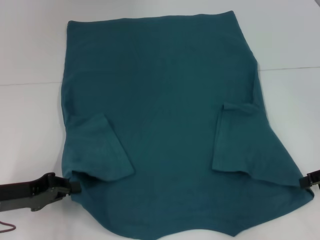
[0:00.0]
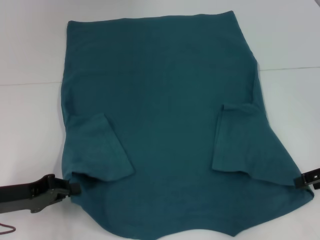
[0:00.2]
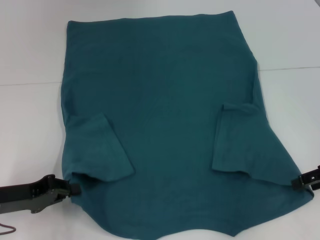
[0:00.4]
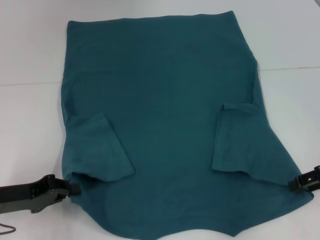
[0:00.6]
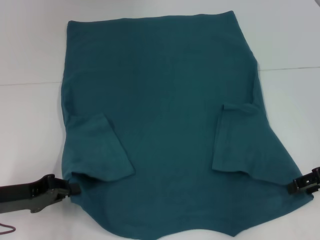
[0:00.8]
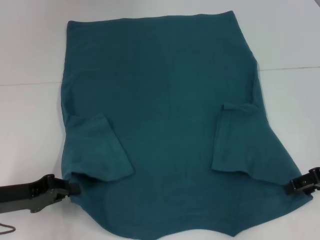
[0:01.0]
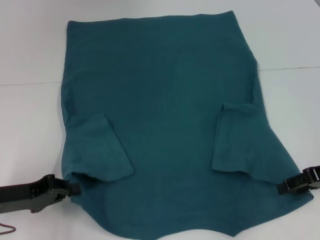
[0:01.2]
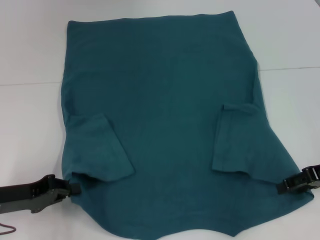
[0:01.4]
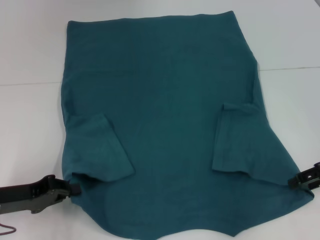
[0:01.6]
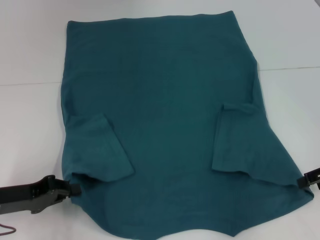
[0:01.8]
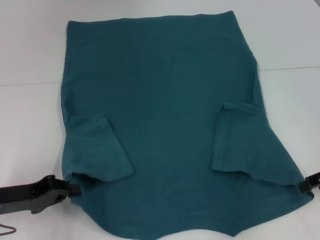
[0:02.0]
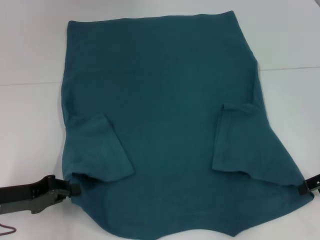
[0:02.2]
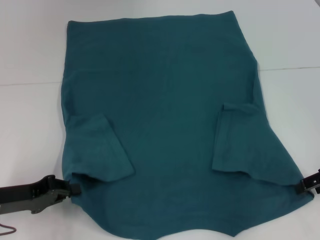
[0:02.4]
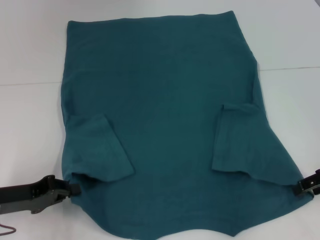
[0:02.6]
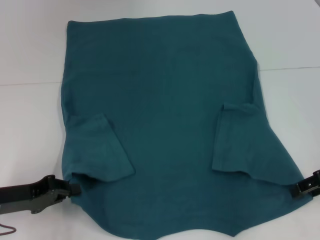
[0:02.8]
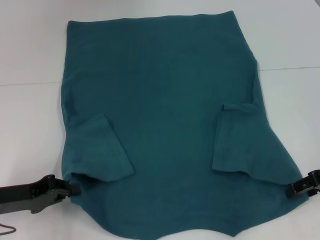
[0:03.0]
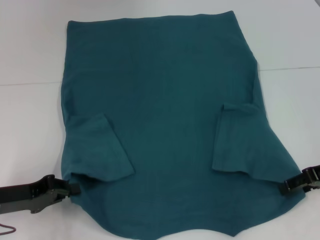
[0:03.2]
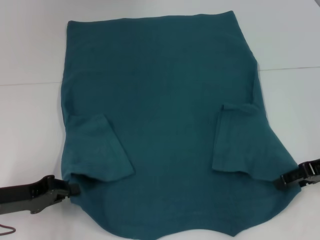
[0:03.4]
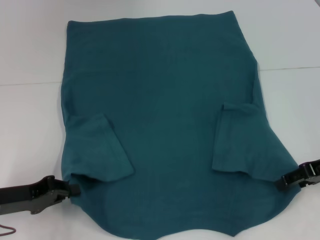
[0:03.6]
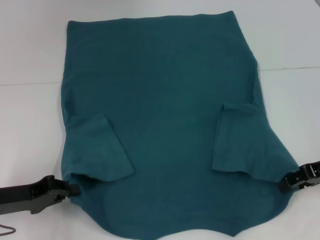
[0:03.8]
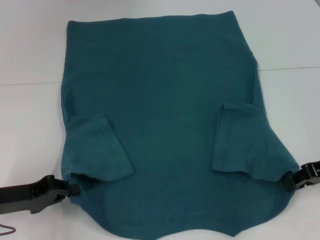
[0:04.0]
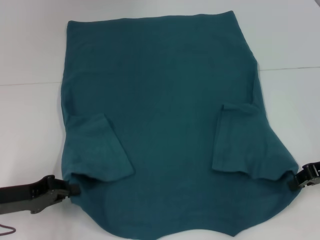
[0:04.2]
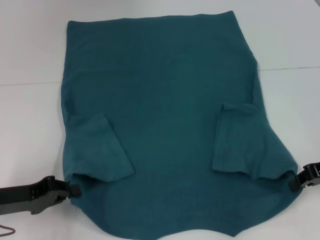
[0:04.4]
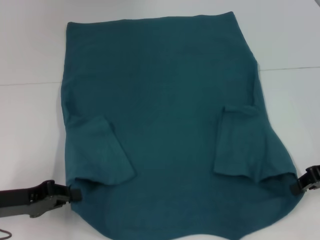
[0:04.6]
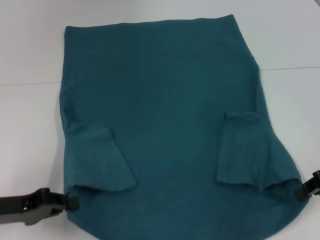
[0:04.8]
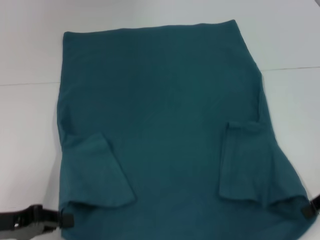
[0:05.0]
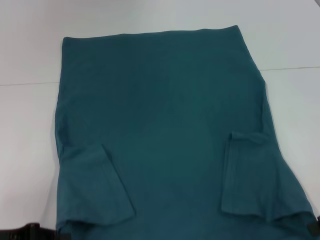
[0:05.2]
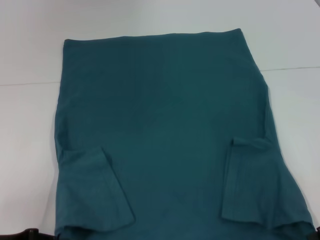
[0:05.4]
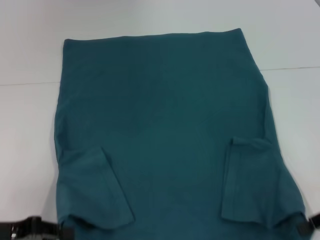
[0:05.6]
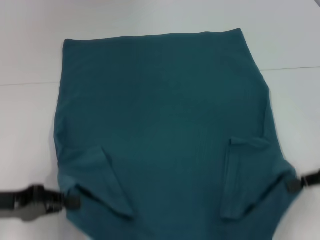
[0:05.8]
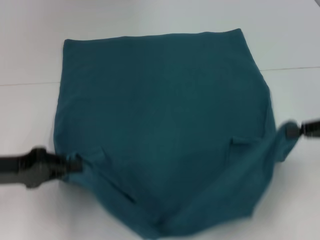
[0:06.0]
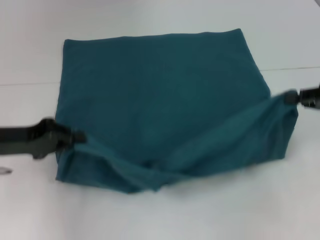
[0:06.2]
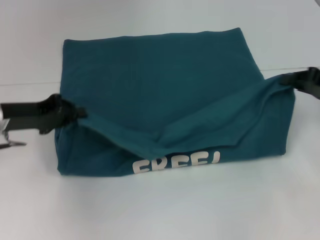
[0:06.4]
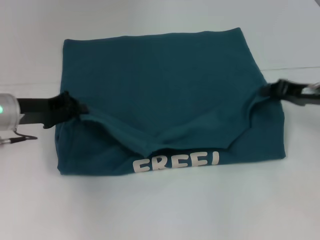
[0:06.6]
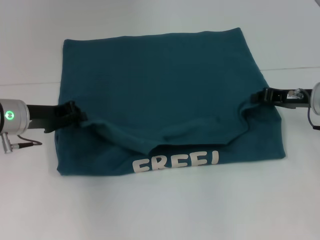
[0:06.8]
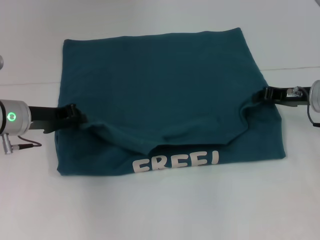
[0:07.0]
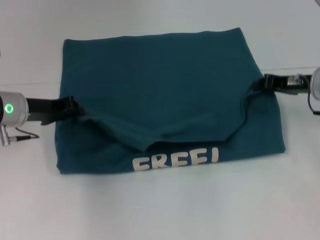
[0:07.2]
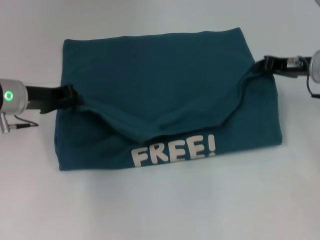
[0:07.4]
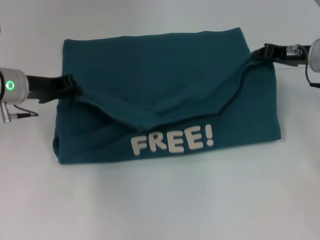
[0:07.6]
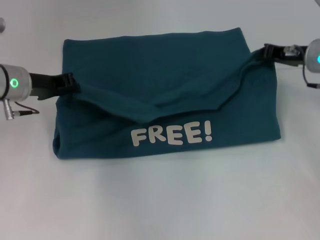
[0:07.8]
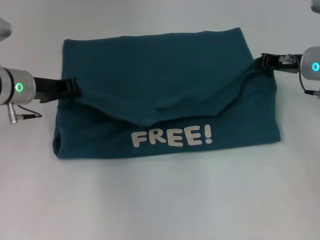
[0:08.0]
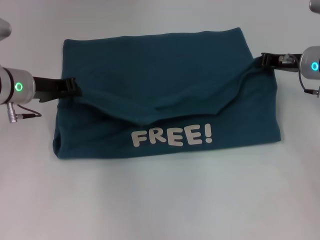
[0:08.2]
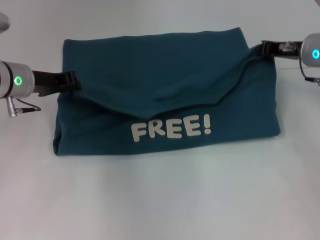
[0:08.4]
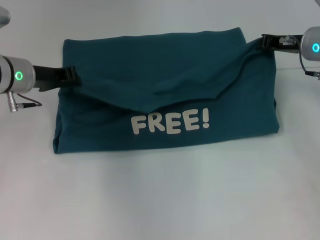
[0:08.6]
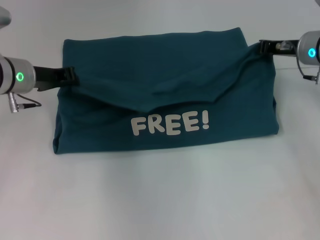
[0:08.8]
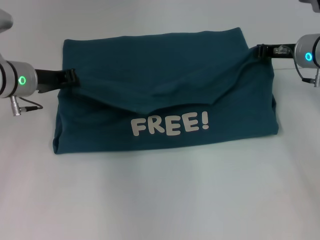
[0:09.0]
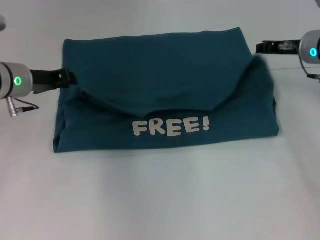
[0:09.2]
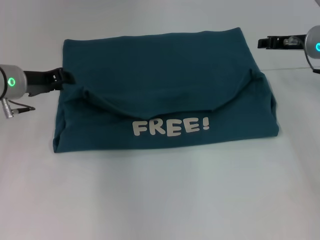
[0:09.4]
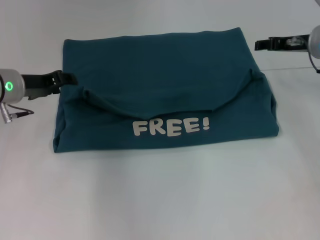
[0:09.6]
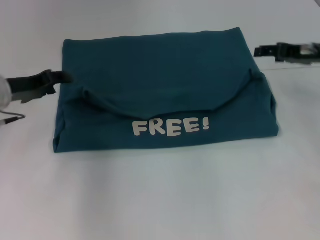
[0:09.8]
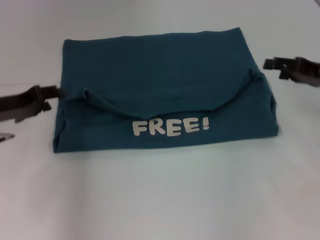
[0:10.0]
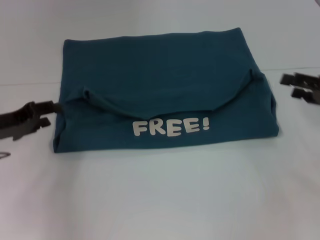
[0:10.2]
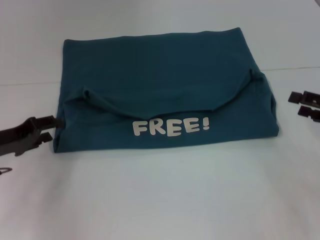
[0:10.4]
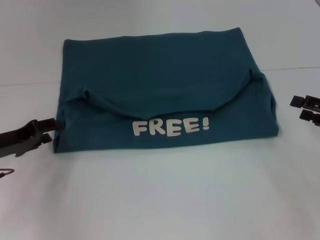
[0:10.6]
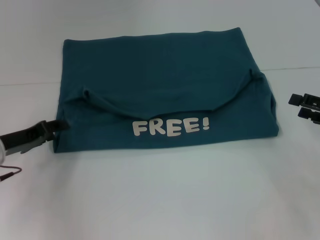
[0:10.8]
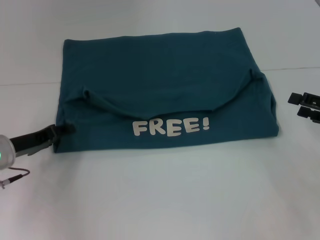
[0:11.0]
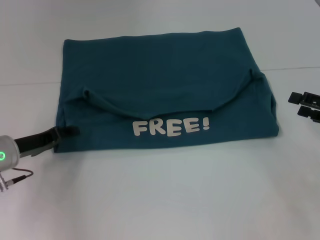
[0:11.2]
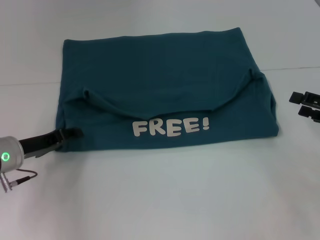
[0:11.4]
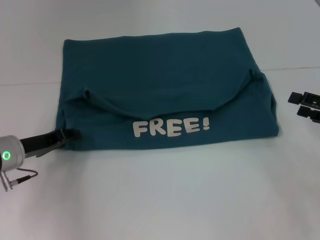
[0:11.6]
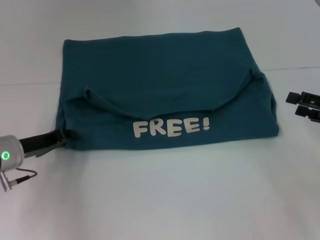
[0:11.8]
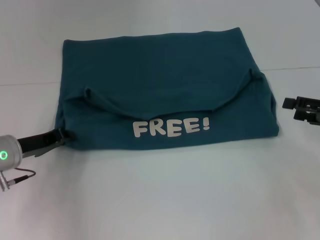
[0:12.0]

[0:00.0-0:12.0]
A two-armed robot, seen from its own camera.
Step, 0.0 to 4.8 s: Grab the bottom right corner with your right hand.
Step, 5.0 to 10.0 s: Fold the clothes to the left.
Step, 5.0 to 10.0 s: Fold the clothes to the right.
0.0 to 1.6 s: There are only small adjustments of the grippers.
3.0 to 4.4 s: The right gripper closes its fingers.
4.4 to 6.0 s: The right gripper changes place by some 5 cm. The left gripper moves upward, approximately 5 cm.
6.0 to 7.6 s: The left gripper travels forward and to the right by roughly 15 cm. Meanwhile the right gripper shifts approximately 15 cm forward and to the left.
7.6 to 9.0 s: The grippers move only a little.
9.0 to 10.4 s: The right gripper shifts roughly 20 cm backward and to the right, and opens. The left gripper moves backward, to the left and downward, some 15 cm, and opens up.
10.4 to 12.0 s: The left gripper closes.

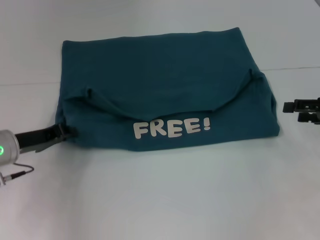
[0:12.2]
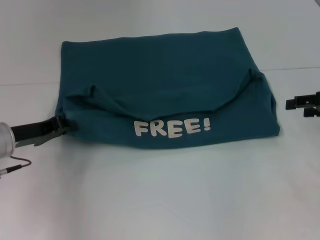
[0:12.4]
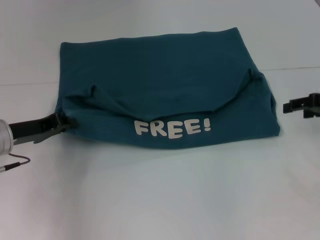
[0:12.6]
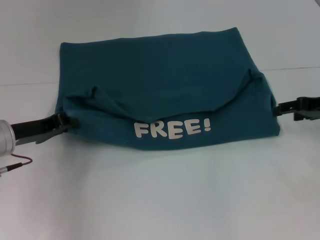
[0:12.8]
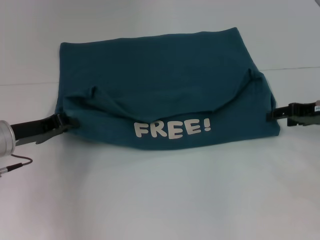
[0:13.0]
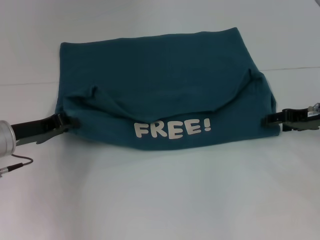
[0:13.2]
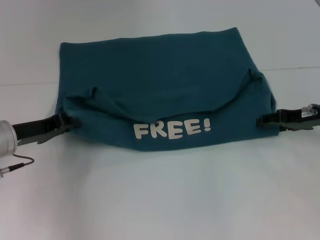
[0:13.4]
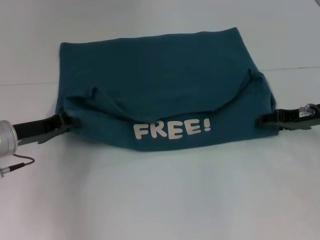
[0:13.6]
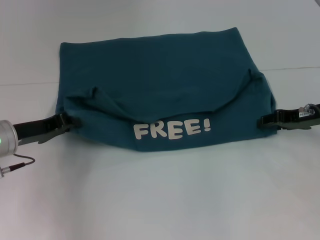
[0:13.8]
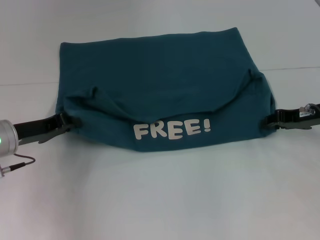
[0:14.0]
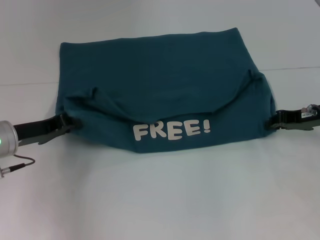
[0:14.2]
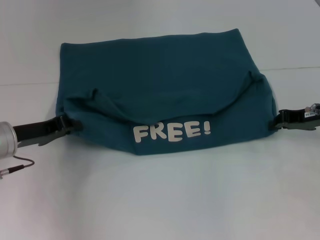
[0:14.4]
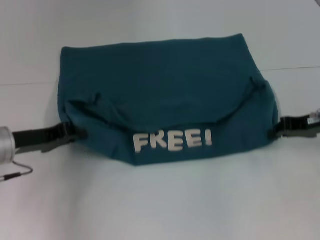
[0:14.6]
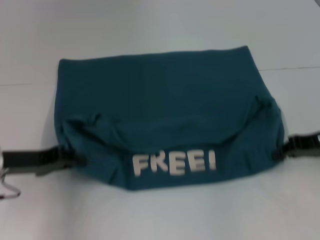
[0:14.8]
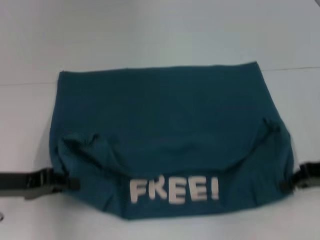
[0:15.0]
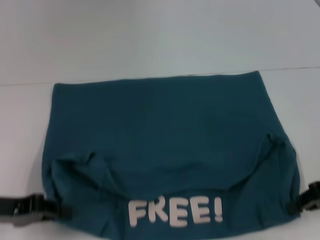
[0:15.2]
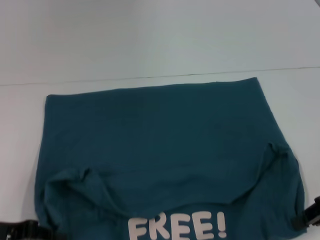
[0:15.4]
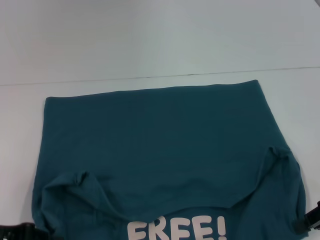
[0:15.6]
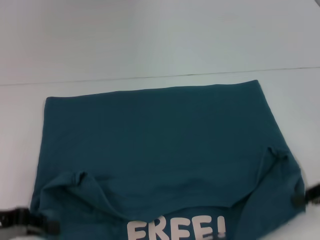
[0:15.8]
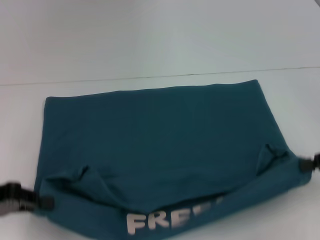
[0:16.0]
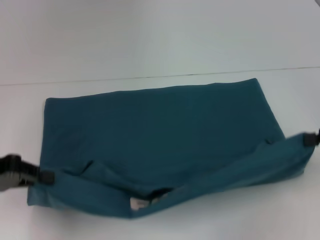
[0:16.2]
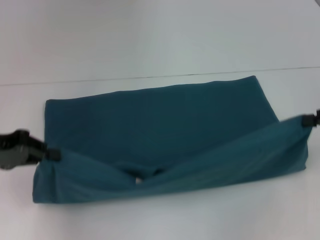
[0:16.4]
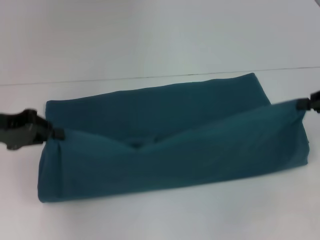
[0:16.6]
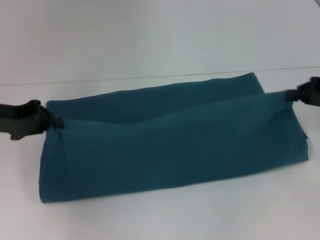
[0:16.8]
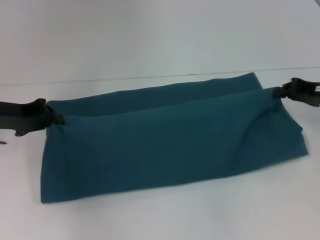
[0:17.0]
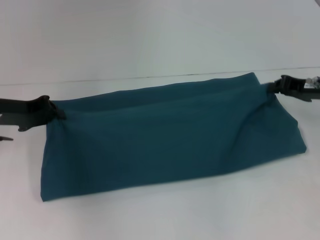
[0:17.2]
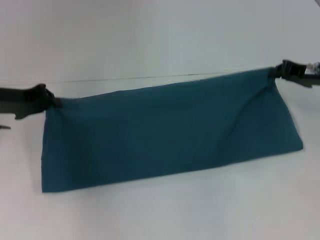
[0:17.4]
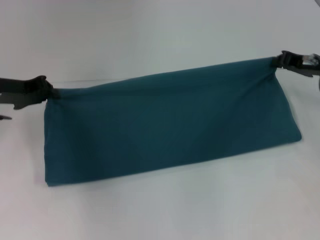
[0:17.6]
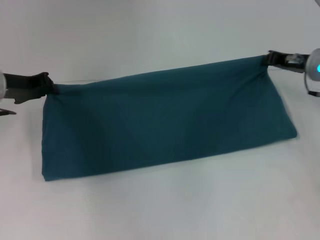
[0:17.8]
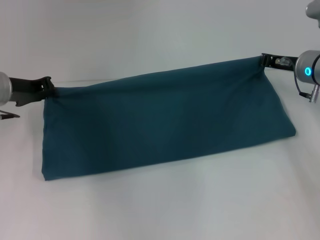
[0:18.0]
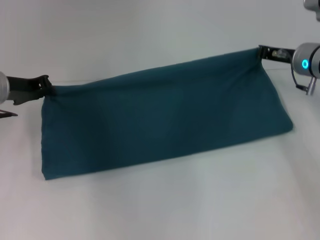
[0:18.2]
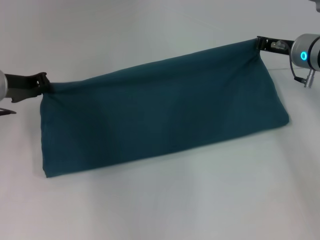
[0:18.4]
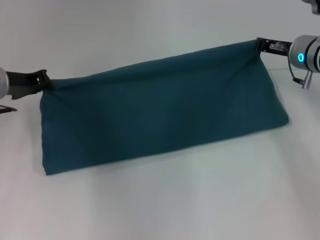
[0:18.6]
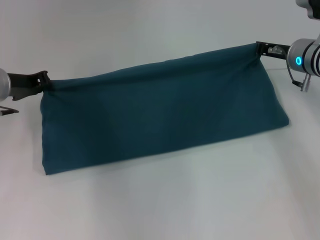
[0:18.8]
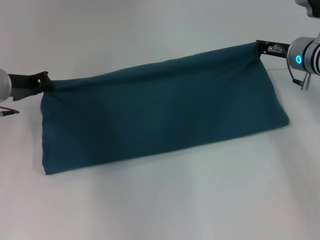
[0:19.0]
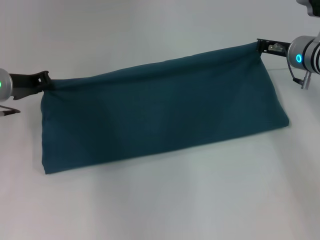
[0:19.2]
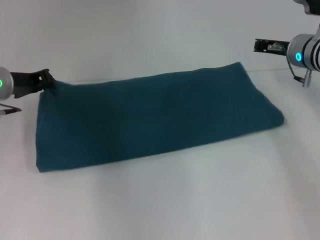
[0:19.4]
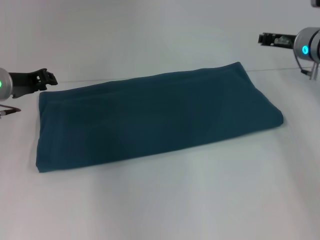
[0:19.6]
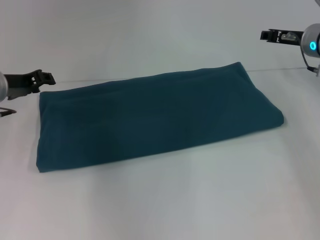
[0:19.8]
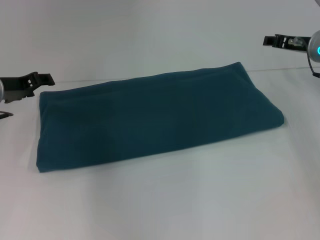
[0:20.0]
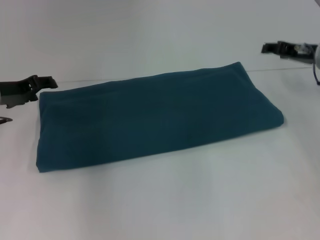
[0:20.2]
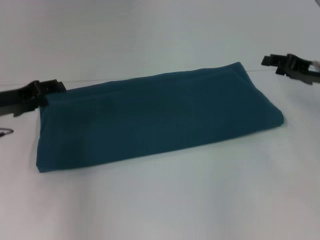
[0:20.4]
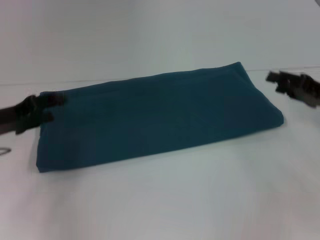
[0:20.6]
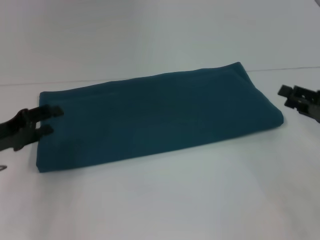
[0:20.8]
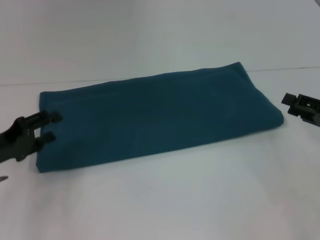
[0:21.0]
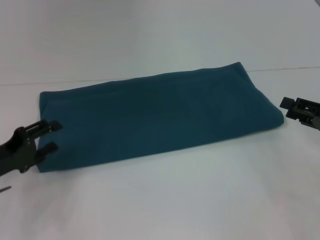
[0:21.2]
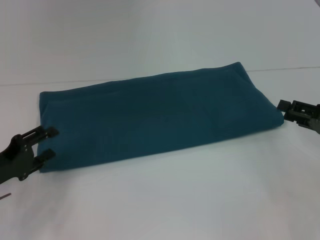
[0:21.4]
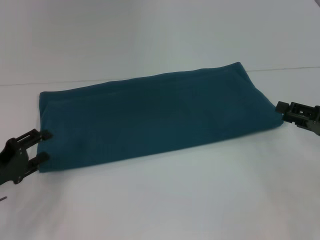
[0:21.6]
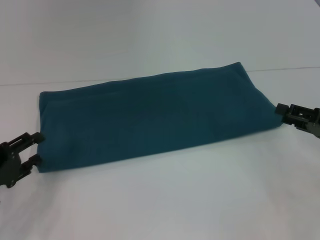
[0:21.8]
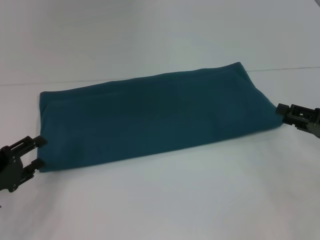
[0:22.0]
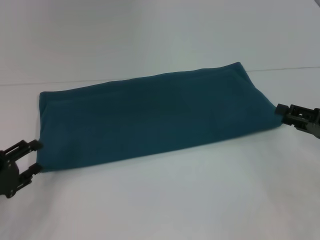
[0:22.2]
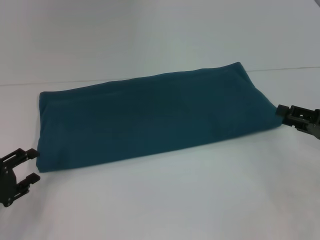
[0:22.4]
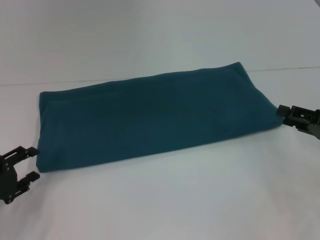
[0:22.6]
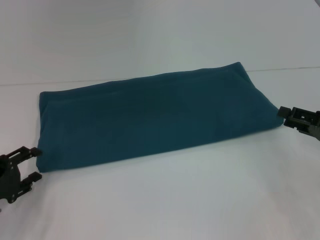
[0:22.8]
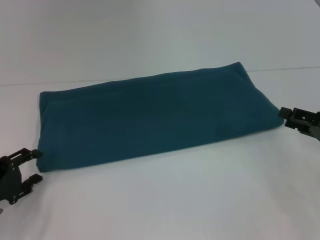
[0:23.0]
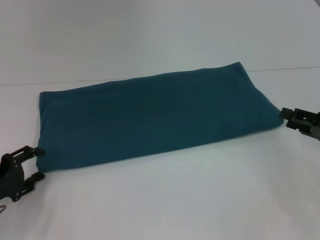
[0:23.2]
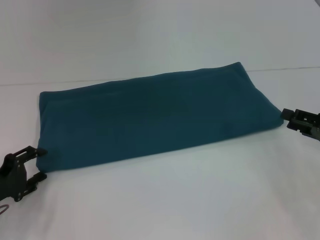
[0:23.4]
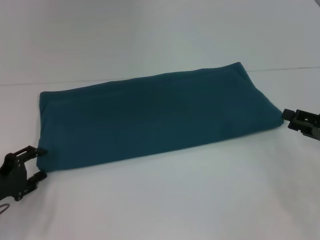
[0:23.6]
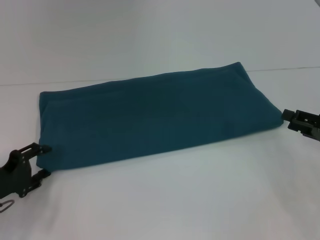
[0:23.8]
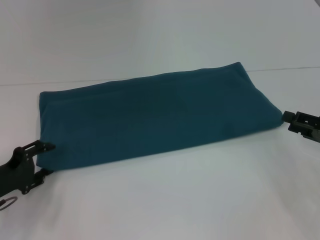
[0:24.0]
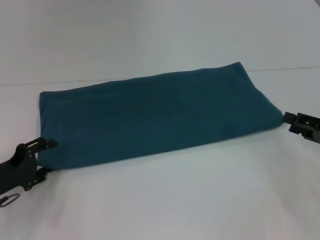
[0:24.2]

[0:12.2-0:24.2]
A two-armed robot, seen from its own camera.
Step, 12.2 to 15.4 s: Pull the clothes with your left hand.
Step, 12.2 to 15.4 s: Pull the clothes with your right hand.
Step, 15.6 to 20.2 s: Fold the clothes to the right.
12.2 to 13.8 s: The right gripper travels to the left by about 5 cm.
13.8 to 15.2 s: Both grippers travel together backward, about 10 cm. The right gripper closes its fingers.
15.2 to 16.6 s: The two grippers go approximately 10 cm forward and upward.
16.6 to 18.2 s: The left gripper is displaced forward by roughly 10 cm; the right gripper goes some 15 cm to the left and forward.
18.2 to 19.8 s: The grippers stay close to where they were, moving slightly.
19.8 to 21.2 s: The right gripper travels backward and to the right by about 20 cm. The left gripper shifts roughly 15 cm backward and downward, and opens its fingers.
21.2 to 22.6 s: The left gripper moves approximately 5 cm.
22.6 to 24.2 s: The grippers make only small movements.
